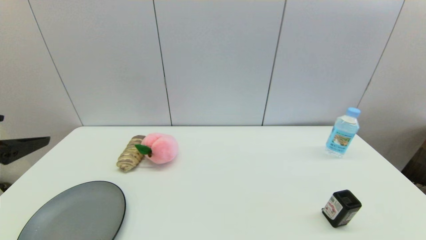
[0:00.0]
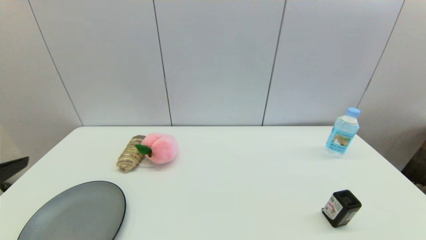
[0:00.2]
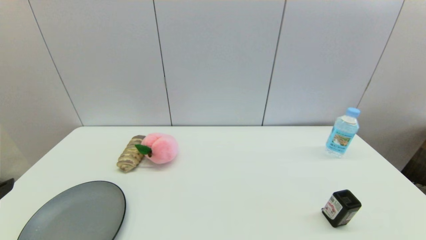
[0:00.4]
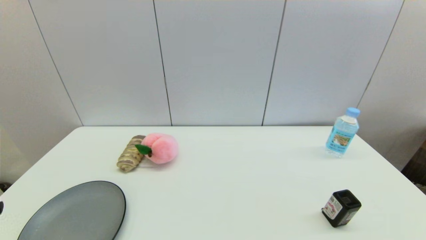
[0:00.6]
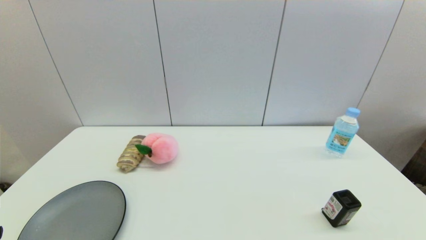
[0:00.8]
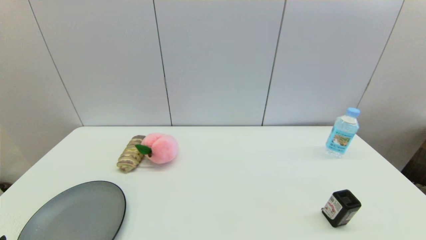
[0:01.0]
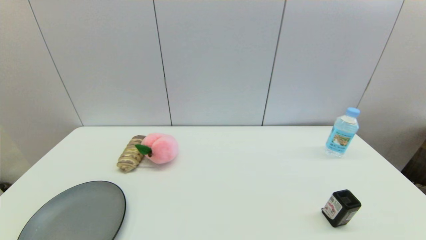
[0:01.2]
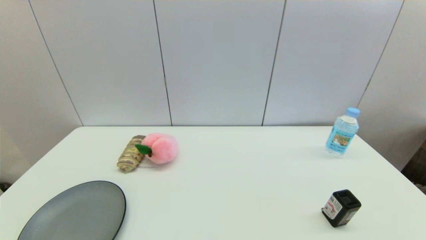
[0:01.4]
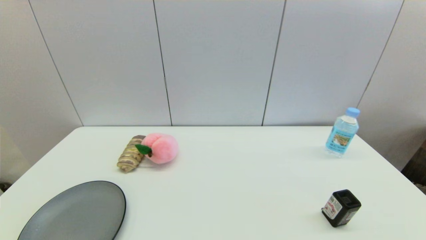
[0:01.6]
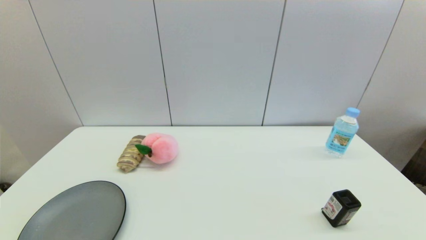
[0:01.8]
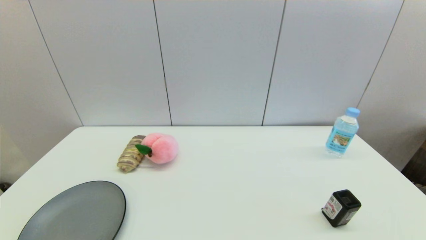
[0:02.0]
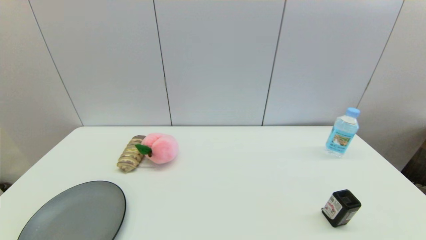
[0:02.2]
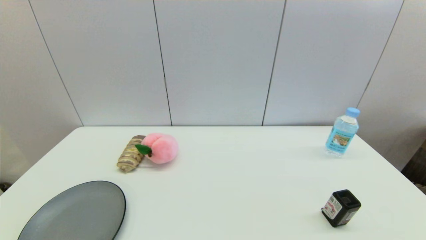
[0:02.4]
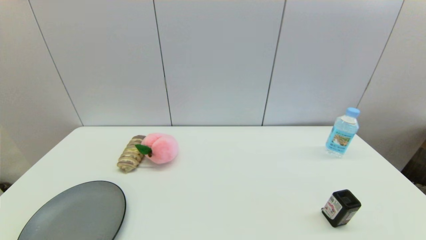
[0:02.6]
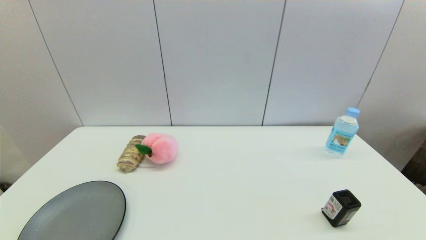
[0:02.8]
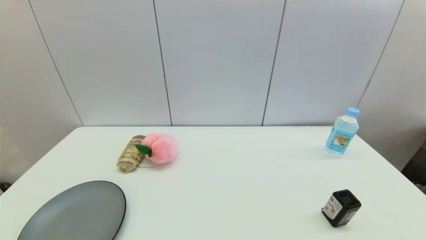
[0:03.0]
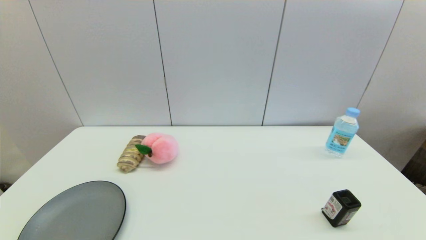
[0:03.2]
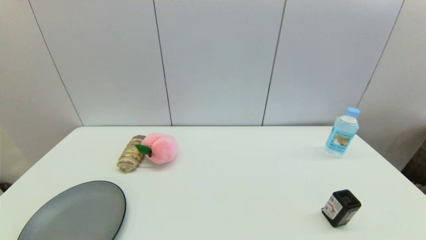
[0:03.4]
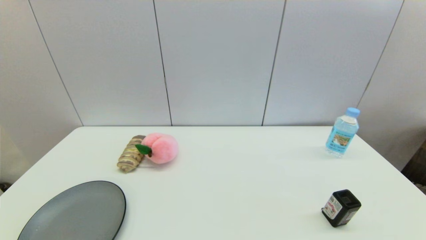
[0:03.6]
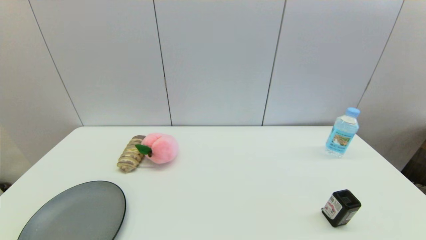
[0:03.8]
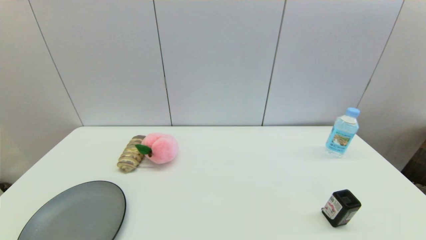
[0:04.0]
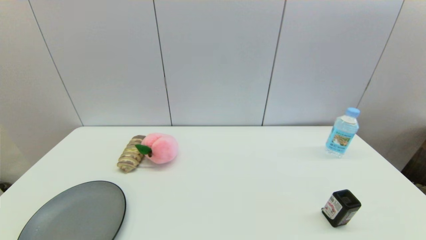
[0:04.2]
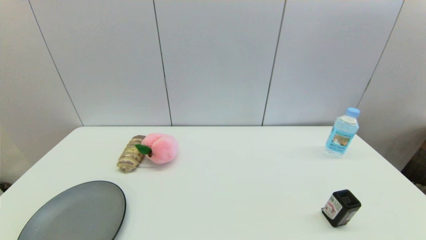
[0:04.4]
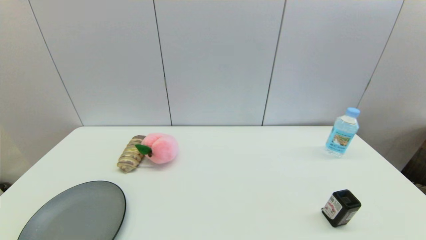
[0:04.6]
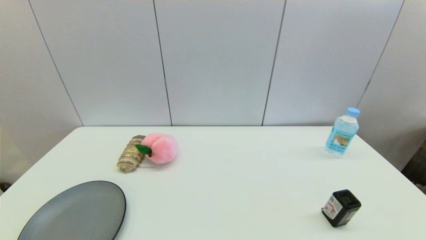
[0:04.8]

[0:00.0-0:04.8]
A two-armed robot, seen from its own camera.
0:00.0 to 0:01.6: The left gripper travels downward and backward by some 20 cm.
0:03.2 to 0:04.8: The two grippers keep their place.
